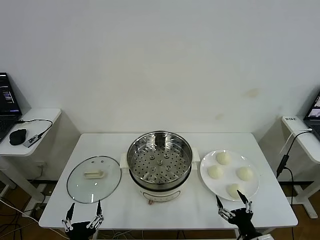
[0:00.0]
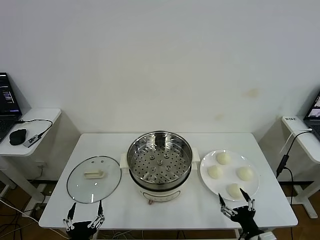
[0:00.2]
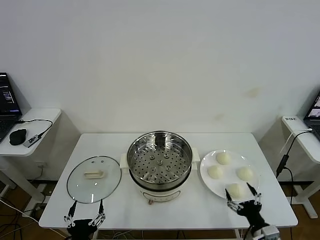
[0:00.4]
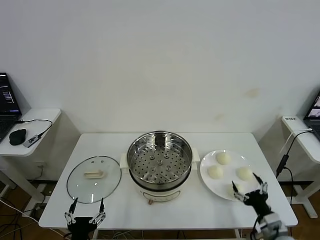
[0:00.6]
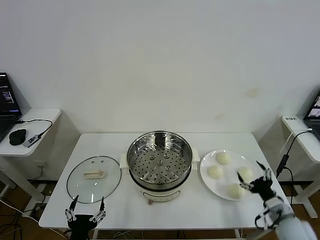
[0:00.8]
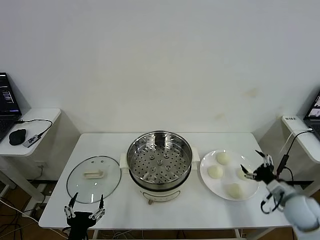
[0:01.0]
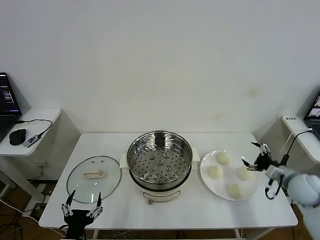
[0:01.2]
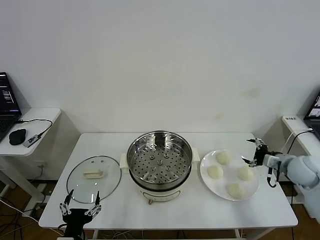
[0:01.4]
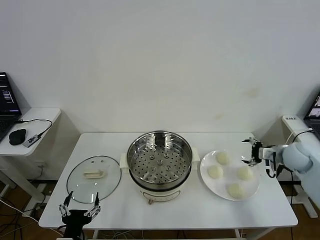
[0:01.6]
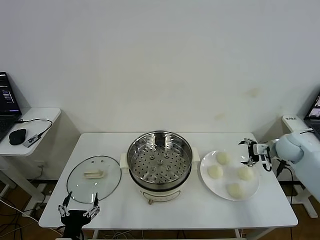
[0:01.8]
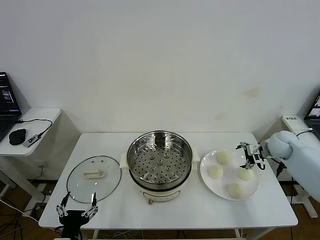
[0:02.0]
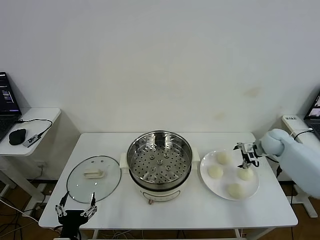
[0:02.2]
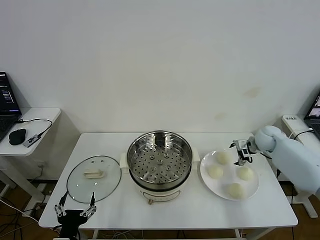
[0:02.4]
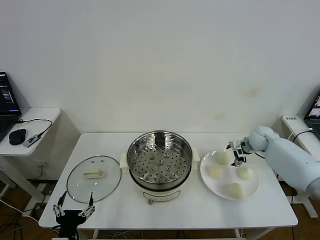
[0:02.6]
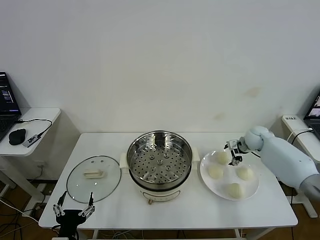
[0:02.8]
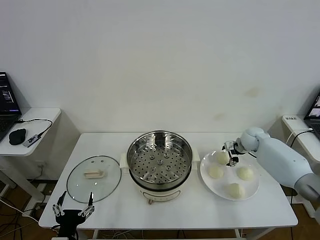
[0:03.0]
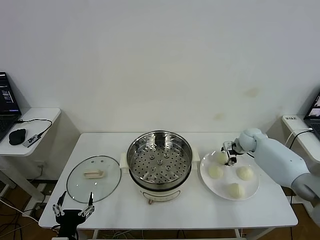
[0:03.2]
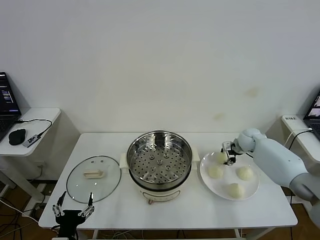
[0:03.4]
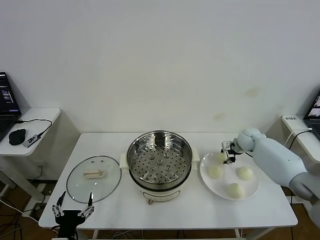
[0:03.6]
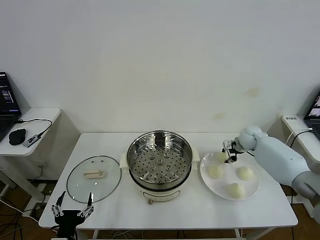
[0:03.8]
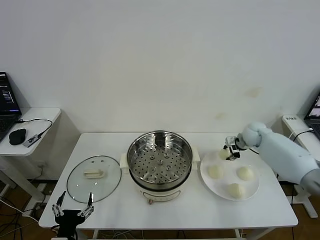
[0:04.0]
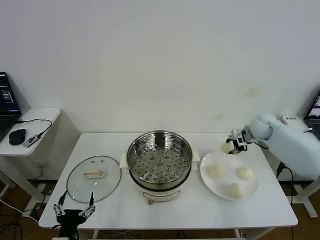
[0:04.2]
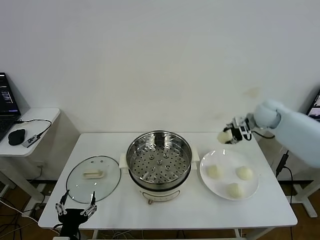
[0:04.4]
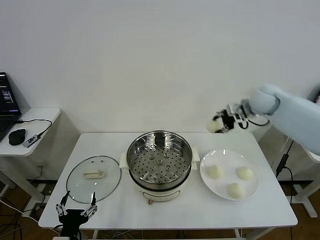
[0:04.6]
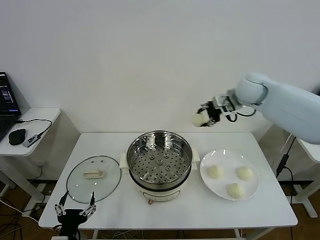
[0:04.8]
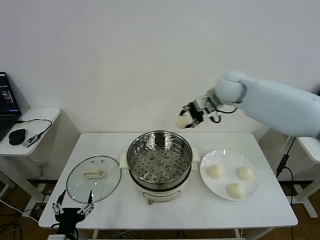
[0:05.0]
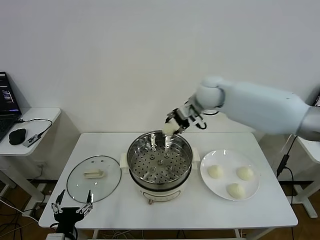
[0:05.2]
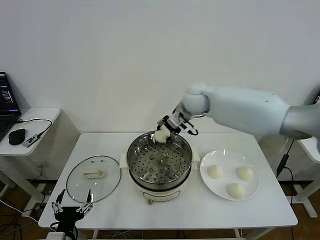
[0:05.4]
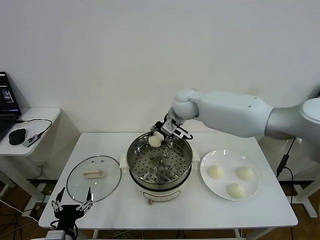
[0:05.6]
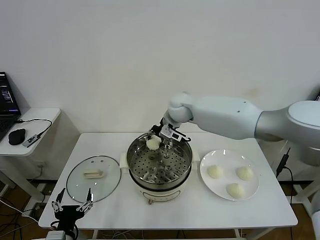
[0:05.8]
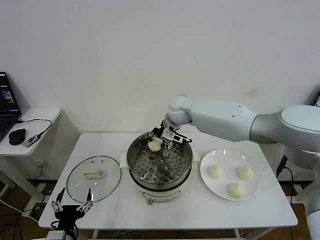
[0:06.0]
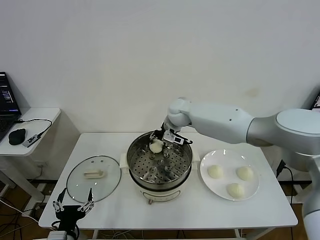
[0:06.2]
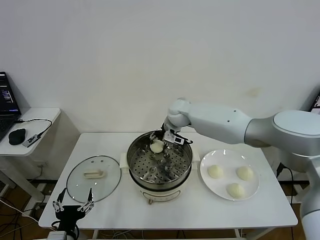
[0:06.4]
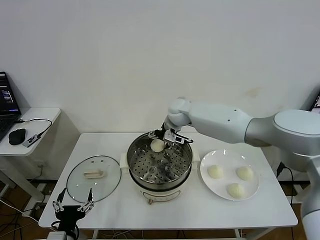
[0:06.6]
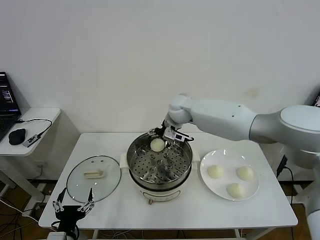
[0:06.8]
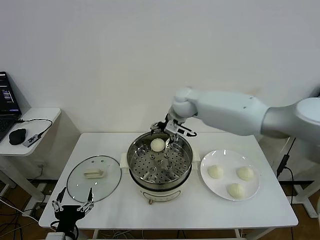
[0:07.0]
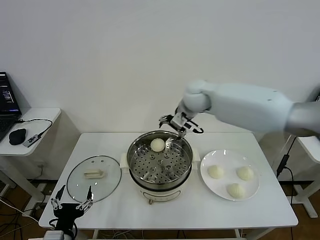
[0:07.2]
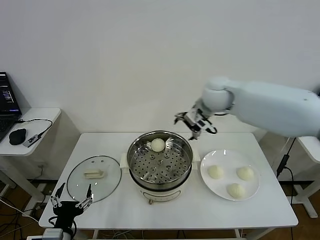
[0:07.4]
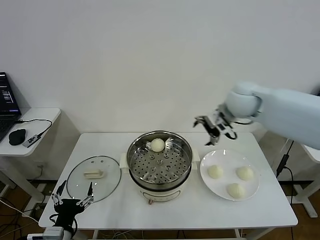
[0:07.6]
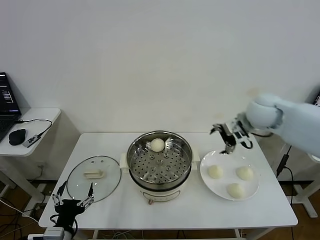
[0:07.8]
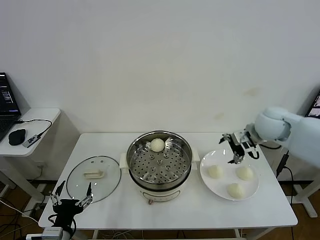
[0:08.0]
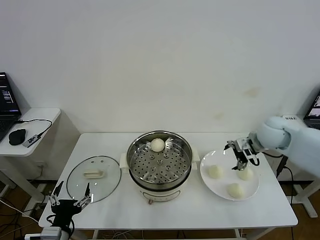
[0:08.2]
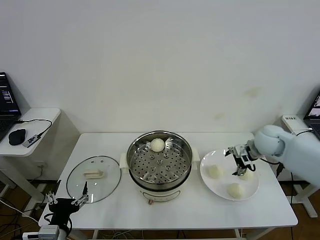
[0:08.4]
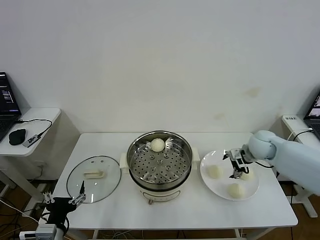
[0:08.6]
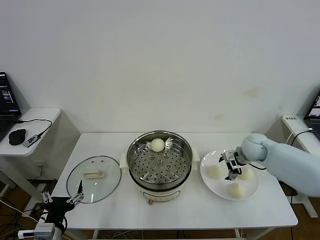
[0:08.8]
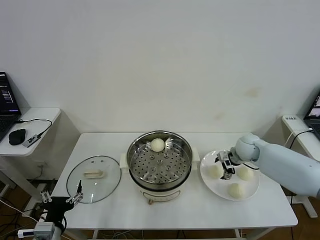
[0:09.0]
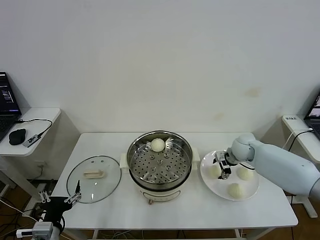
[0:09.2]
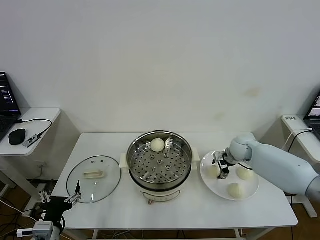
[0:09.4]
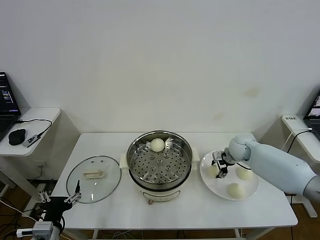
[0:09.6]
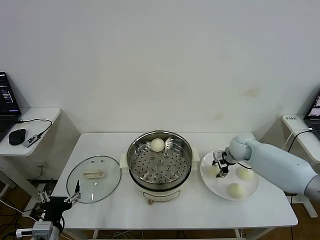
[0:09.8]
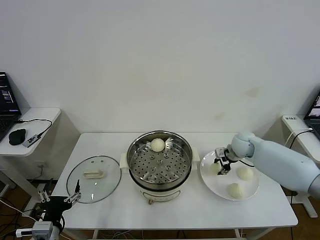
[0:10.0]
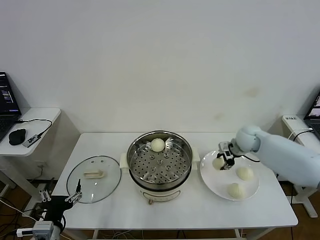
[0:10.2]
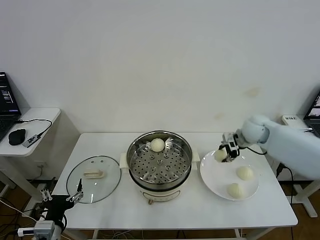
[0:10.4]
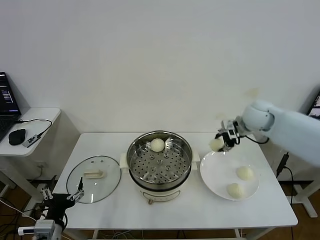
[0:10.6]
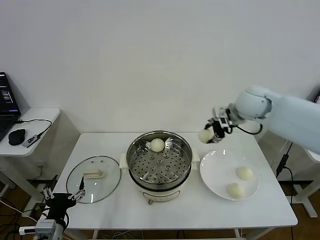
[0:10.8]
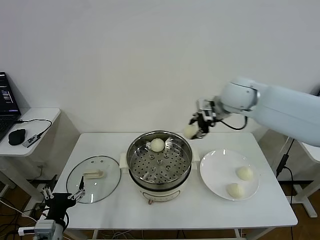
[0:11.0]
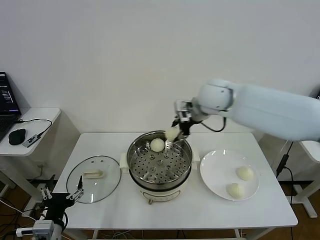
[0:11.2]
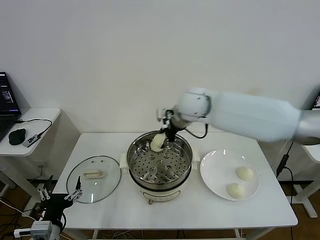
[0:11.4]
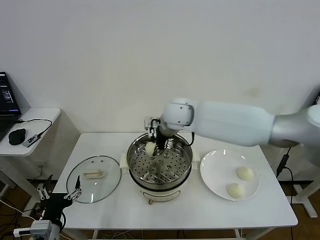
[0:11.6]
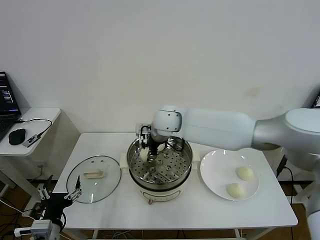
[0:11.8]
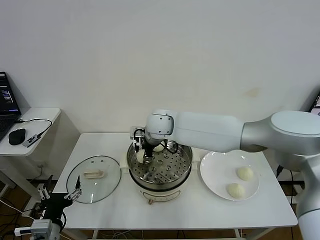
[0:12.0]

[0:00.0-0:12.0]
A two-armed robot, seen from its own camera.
Task of the whole recording: take steamed baozi put them in steamer then cover it.
Step, 0:00.0 to 0:03.6: Grasp the baozi in the plate with right gripper.
Step, 0:03.8 to 0:06.6: Place the baozi on the steamer with right gripper.
Step, 0:06.8 to 0:09.8: Grasp the baozi in the plate with right gripper.
0:01.6 to 0:03.0: The right gripper moves forward, to the left and downward, approximately 15 cm.
0:03.0 to 0:04.4: The right gripper travels upward by some 20 cm, and closes up.
0:04.4 to 0:06.0: The right gripper travels to the left by some 25 cm.
0:06.0 to 0:07.6: The right gripper travels to the right and backward by about 25 cm, and opens its fingers.
0:07.6 to 0:09.0: The right gripper goes about 20 cm downward.
0:09.0 to 0:10.4: The right gripper is displaced upward by about 15 cm, and closes its fingers.
0:10.4 to 0:12.0: The right gripper is displaced to the left by approximately 35 cm.

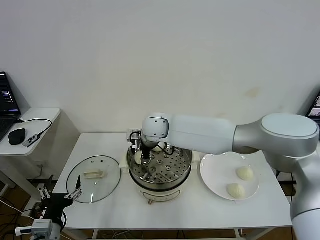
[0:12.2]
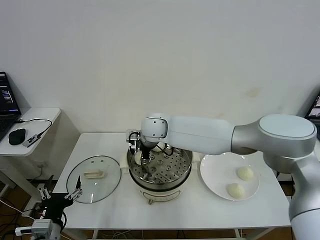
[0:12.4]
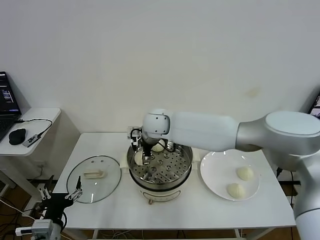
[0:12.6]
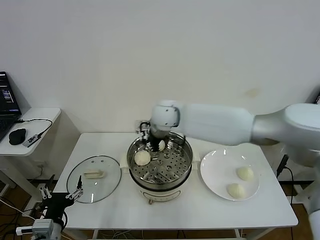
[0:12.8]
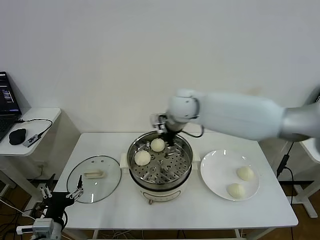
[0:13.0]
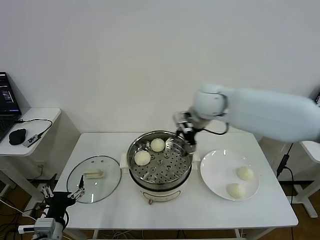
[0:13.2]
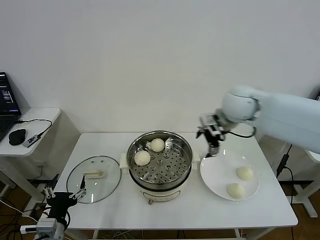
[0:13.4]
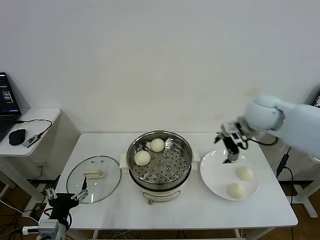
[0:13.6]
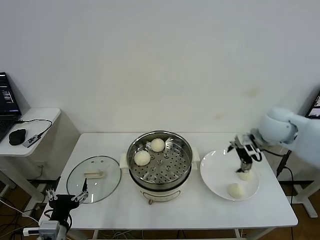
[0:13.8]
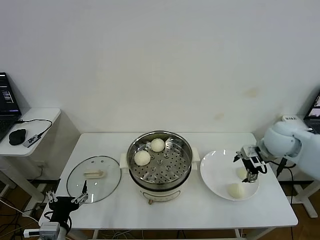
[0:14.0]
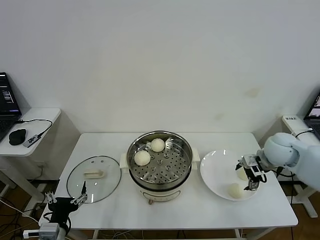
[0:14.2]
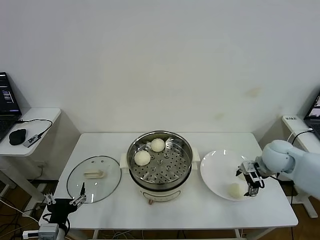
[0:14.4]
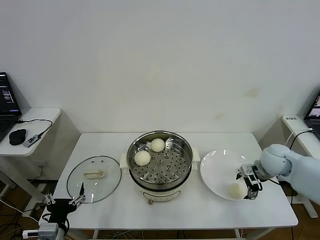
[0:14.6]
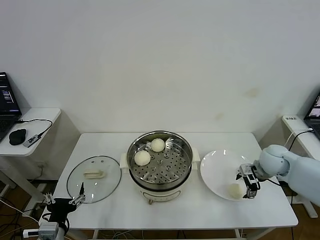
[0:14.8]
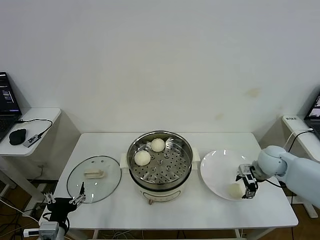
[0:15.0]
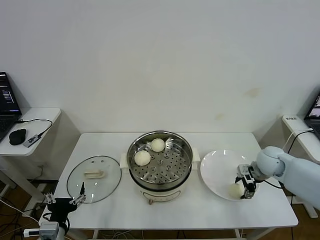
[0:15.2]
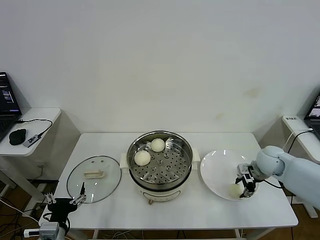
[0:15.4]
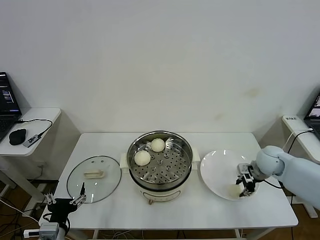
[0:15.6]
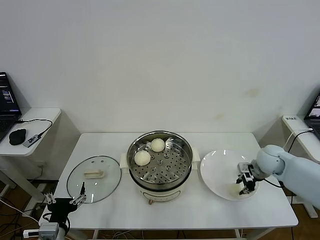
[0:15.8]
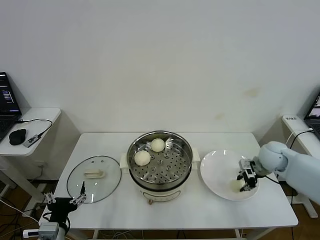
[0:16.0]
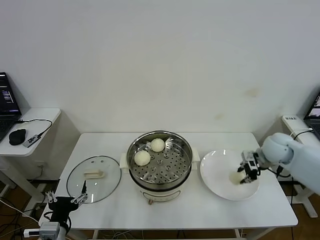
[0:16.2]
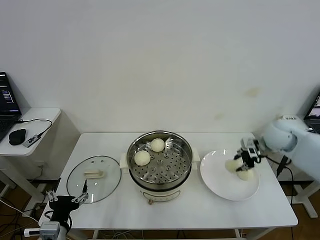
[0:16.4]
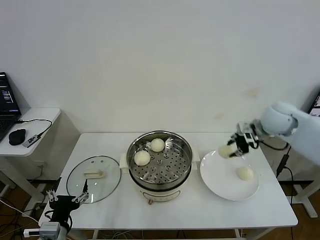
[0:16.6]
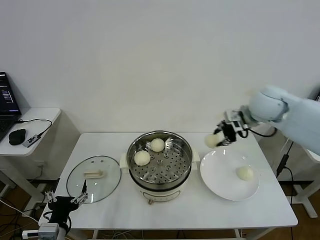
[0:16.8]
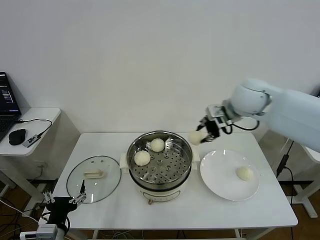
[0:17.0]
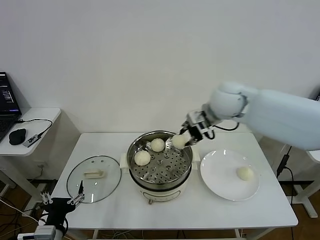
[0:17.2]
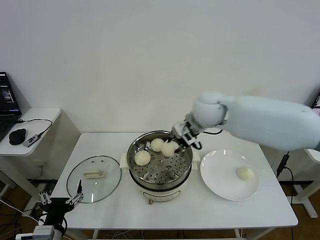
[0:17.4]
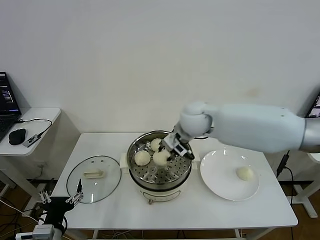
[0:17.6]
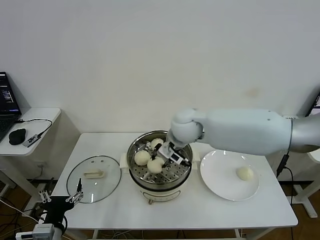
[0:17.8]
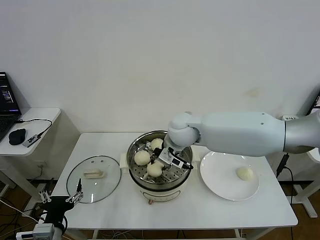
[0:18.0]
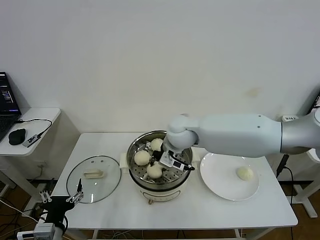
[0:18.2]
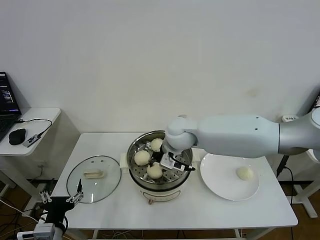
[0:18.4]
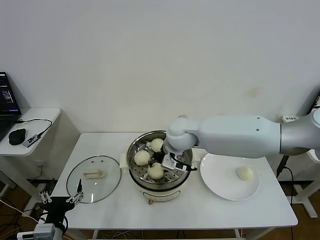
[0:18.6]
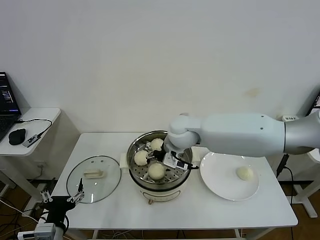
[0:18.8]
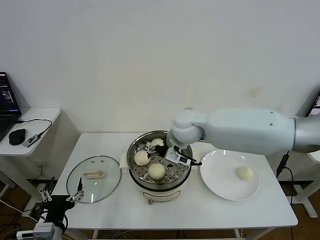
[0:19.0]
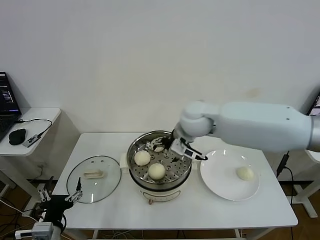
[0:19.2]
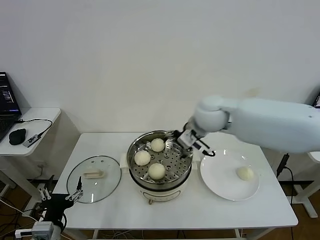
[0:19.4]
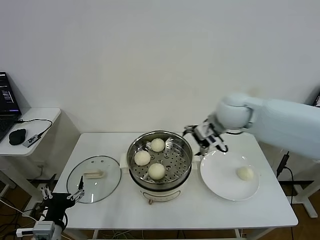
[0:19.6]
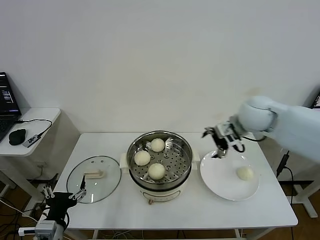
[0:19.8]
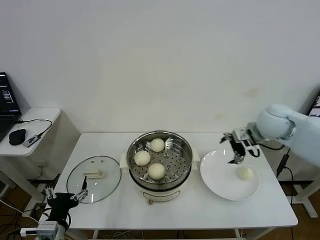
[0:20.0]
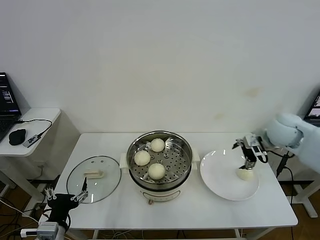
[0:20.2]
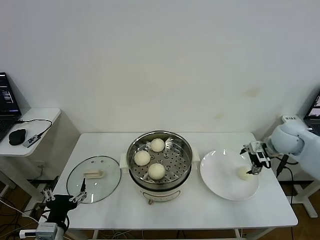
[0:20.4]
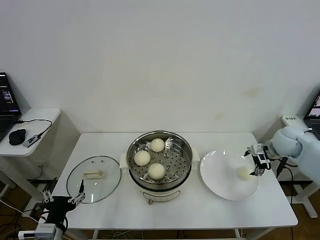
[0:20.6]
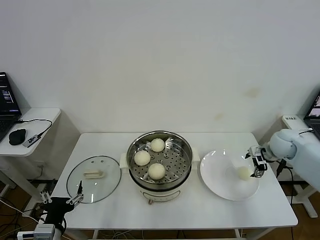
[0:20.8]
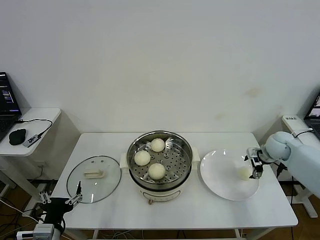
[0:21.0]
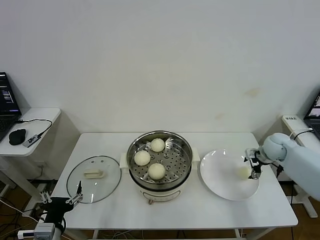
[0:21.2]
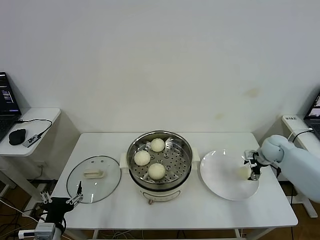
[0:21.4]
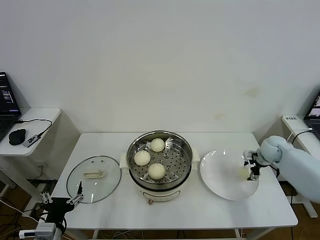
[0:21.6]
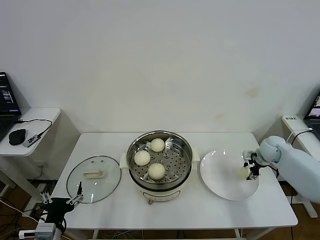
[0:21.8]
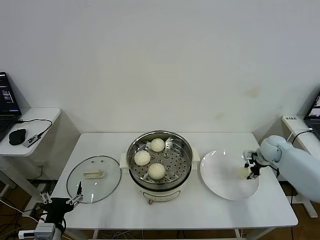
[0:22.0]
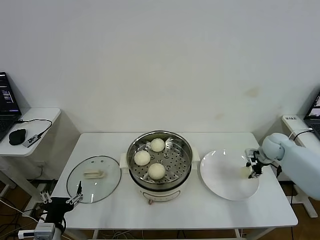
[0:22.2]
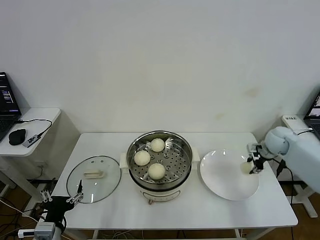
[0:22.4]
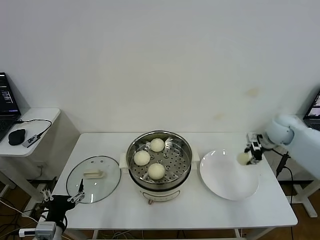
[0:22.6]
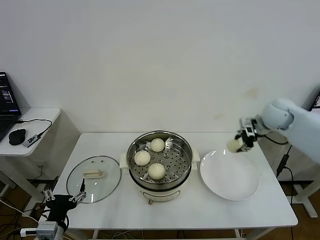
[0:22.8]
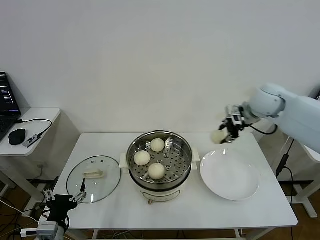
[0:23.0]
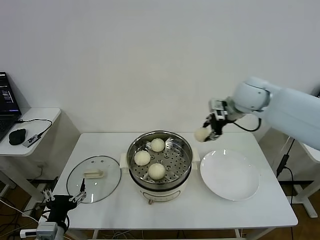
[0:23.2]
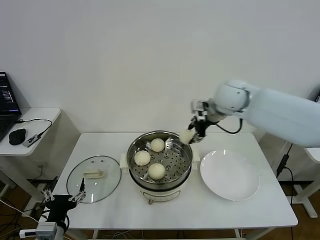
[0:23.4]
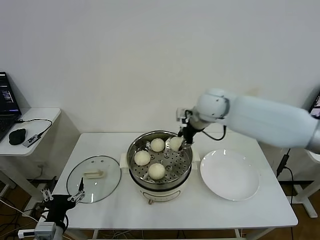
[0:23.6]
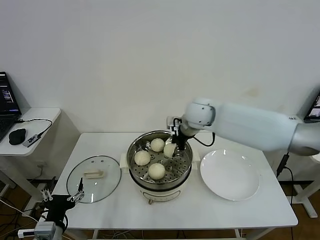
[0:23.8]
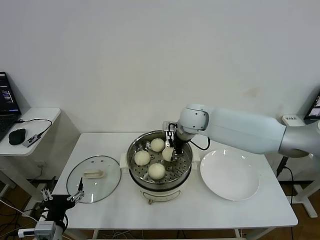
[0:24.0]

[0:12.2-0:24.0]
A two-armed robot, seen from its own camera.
Task of the whole recording: take steamed baozi put them in steamer then cover it.
Step, 0:12.8 to 0:15.4: Grasp the baozi in the plate with right gripper.
Step, 0:15.8 to 0:18.8: Place the baozi on the steamer with right gripper.
Step, 0:19.0 to 0:22.0: Grasp the baozi in the plate with right gripper.
0:12.2 to 0:13.6: The right gripper moves to the right, about 35 cm, and opens its fingers.
0:13.6 to 0:15.2: The right gripper moves downward, roughly 20 cm, and closes up.
0:15.2 to 0:16.6: The right gripper travels upward by about 20 cm, and closes up.
0:16.6 to 0:18.2: The right gripper heads to the left, covering approximately 25 cm.
0:18.2 to 0:19.6: The right gripper moves to the right and upward, approximately 20 cm, and opens its fingers.
0:19.6 to 0:21.0: The right gripper goes roughly 25 cm to the right and downward.
0:21.0 to 0:22.6: The right gripper shifts approximately 10 cm upward, and closes up.
0:22.6 to 0:24.0: The right gripper heads to the left, covering about 30 cm.
